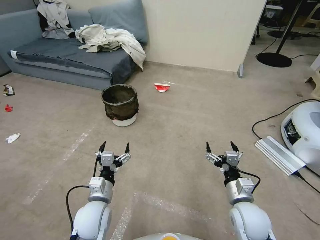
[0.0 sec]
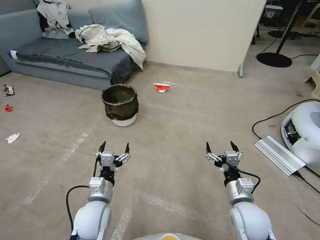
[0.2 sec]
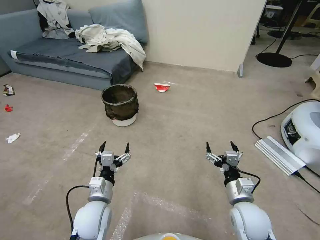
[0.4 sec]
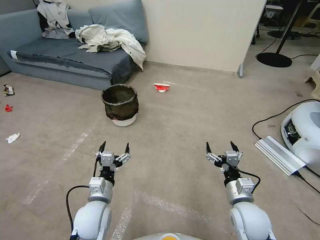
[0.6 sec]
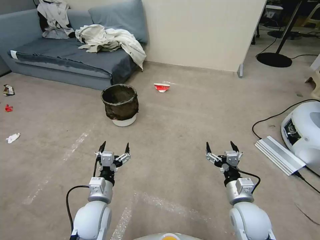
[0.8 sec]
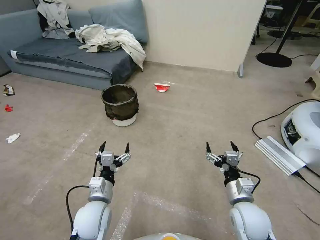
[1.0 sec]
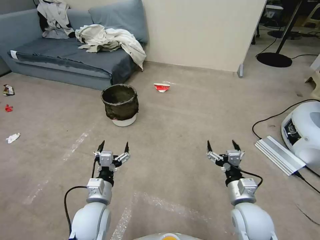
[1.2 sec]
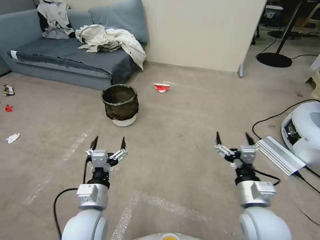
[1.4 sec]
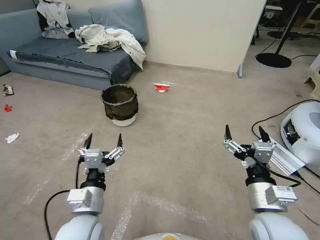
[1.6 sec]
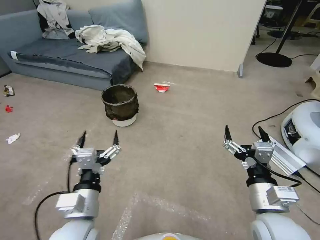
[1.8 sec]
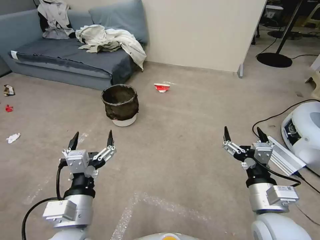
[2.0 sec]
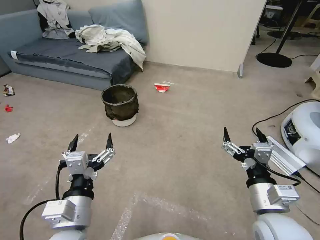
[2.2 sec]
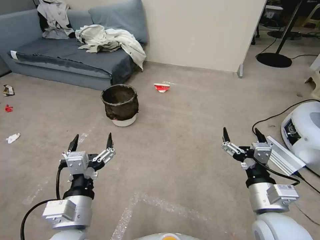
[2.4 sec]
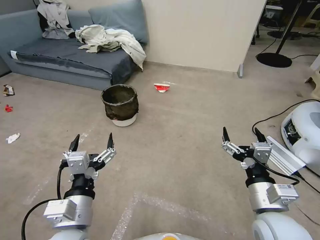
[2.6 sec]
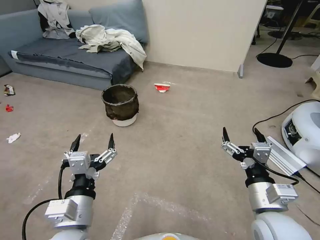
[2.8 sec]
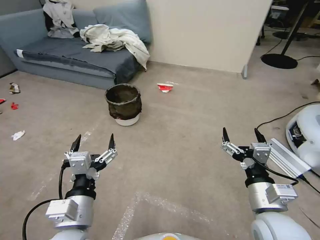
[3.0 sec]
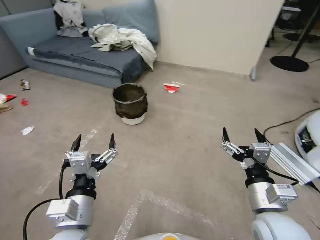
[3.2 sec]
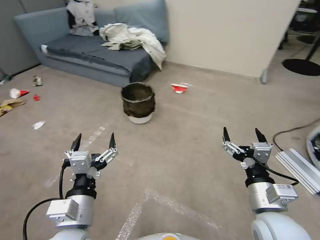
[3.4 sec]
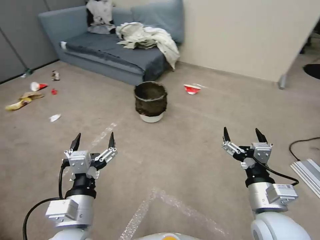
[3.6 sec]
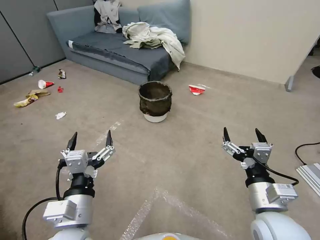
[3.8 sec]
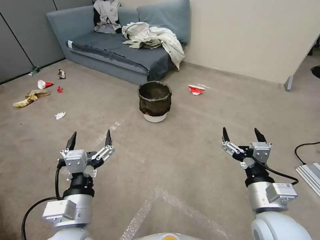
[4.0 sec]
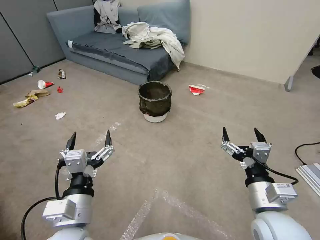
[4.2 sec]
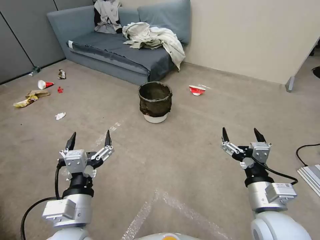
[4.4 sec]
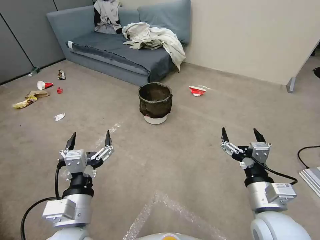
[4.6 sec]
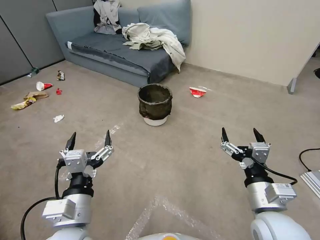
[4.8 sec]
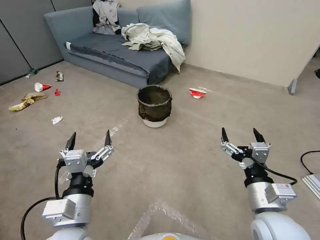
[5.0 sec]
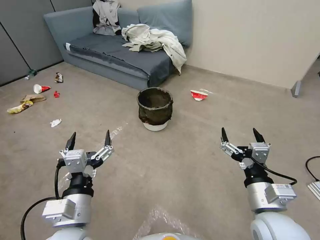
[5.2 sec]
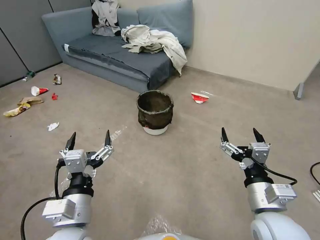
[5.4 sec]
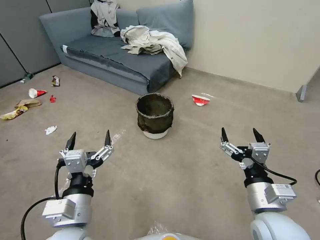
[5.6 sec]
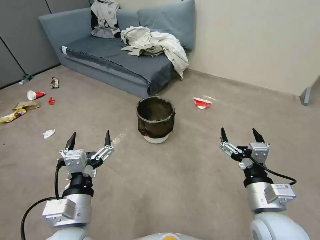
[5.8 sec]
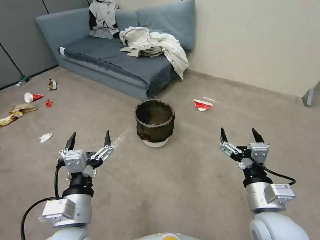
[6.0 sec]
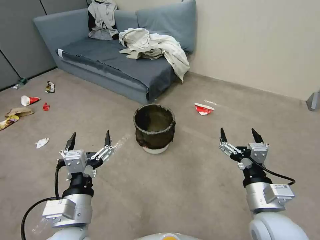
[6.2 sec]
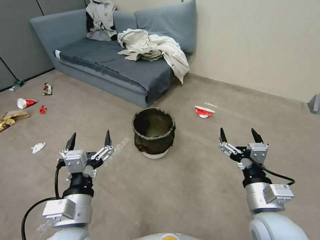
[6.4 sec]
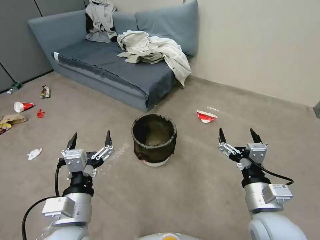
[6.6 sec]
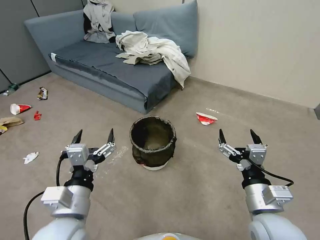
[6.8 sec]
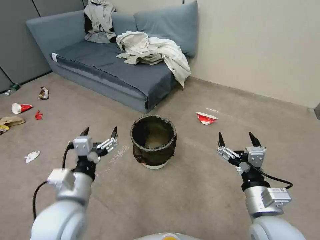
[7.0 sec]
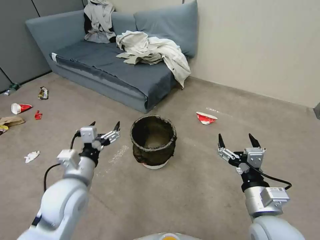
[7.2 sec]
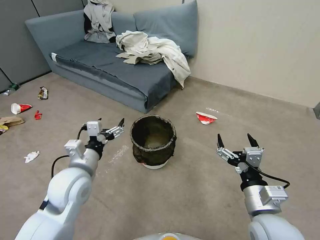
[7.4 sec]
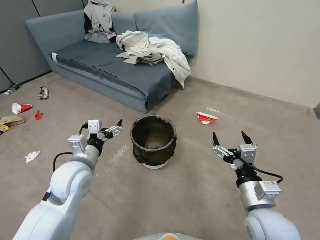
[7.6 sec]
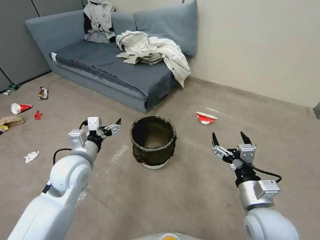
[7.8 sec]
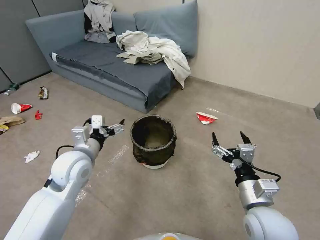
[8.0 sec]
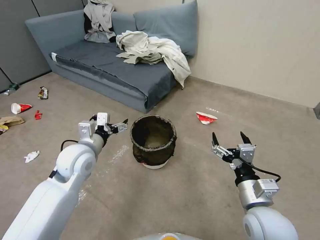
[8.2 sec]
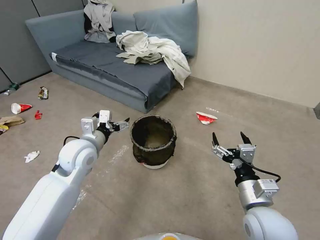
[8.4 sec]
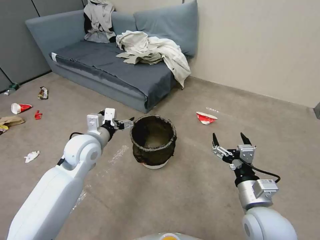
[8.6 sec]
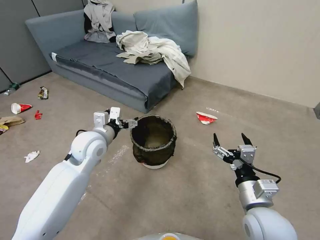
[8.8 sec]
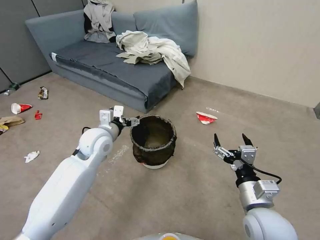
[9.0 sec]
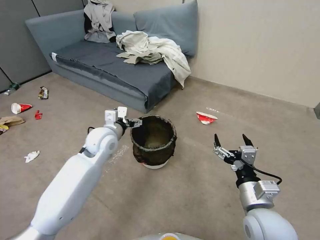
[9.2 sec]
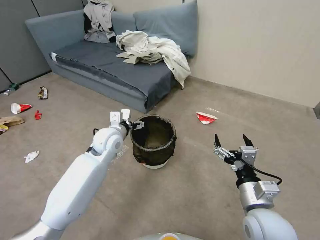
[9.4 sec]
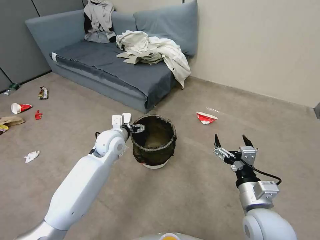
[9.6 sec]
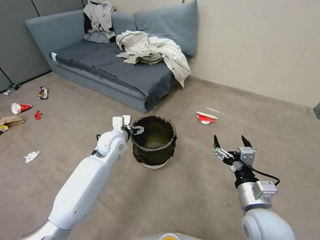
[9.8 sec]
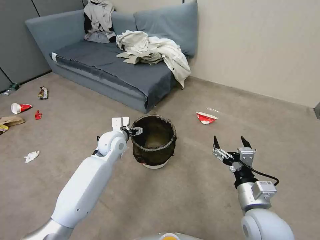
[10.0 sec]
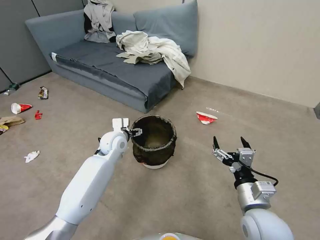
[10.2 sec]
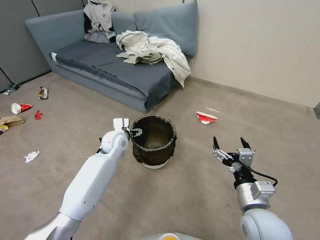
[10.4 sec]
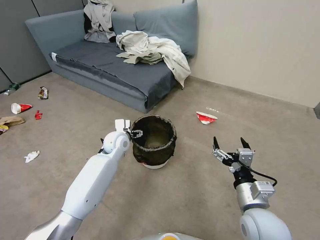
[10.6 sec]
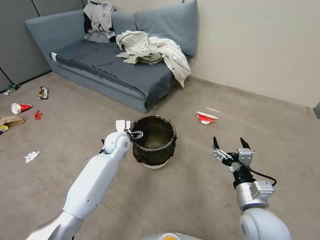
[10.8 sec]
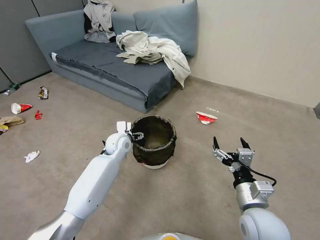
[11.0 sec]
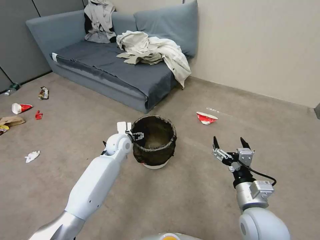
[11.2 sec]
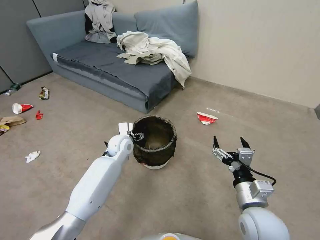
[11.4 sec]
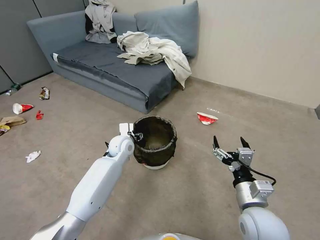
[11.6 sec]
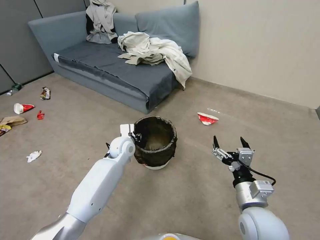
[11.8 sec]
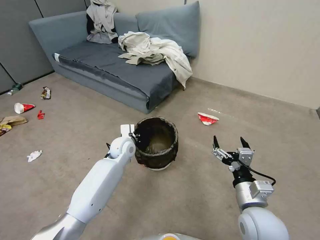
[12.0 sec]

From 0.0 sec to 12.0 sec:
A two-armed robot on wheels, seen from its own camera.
Task of the whole recording: Pick up the trash can from the floor.
From 1.6 sec to 3.0 sec: The left gripper is displaced upward by approximately 5 cm.
From 4.4 sec to 6.0 sec: Both grippers stay about where they are.
From 6.0 sec to 7.6 sec: The left gripper moves forward, roughly 15 cm.
From 7.6 sec to 9.0 sec: The left gripper heads forward, covering some 10 cm.
From 9.0 sec to 10.4 sec: The left gripper shifts approximately 10 cm downward and forward.
From 10.4 sec to 12.0 sec: The left gripper closes.

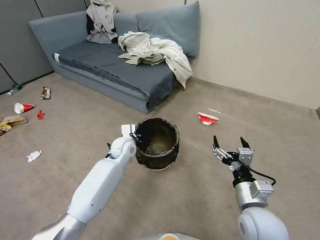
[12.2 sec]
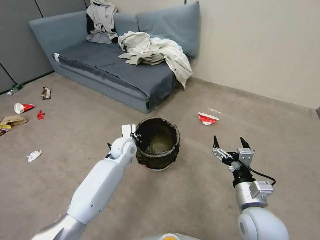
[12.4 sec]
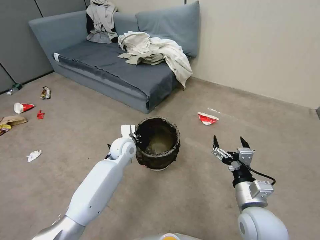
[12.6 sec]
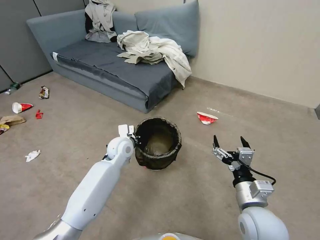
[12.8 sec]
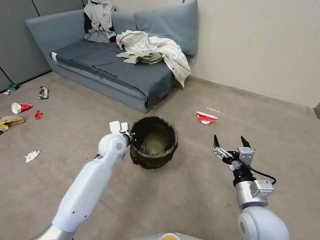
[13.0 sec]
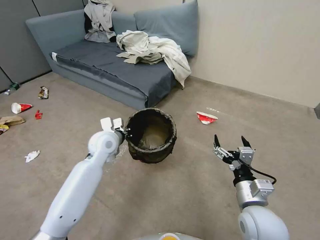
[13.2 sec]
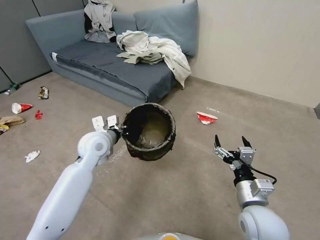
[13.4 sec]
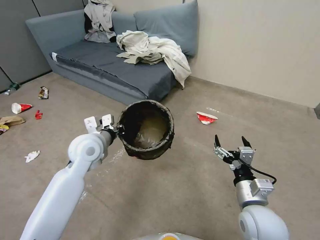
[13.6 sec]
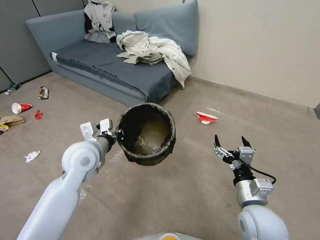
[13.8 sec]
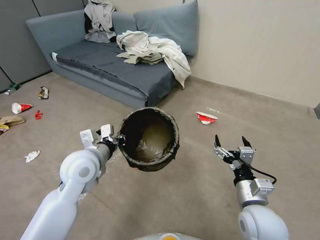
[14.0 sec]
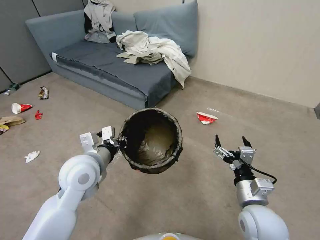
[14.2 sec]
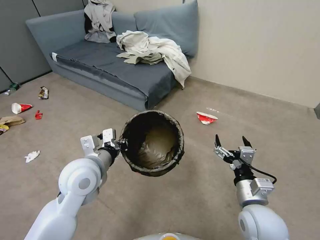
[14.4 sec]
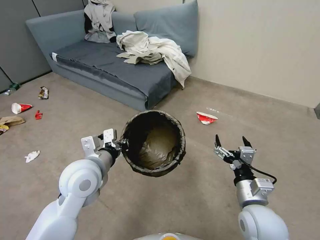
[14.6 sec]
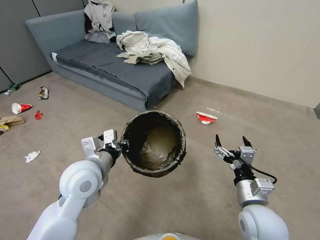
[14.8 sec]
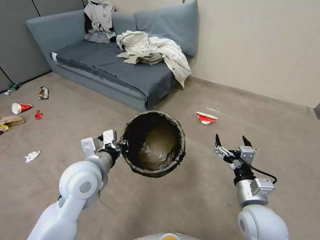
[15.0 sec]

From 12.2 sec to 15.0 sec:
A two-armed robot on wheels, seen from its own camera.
Task of the whole recording: Pick up the trash can from the floor.
From 12.2 sec to 13.6 sec: The left gripper shifts approximately 15 cm upward, backward and to the left.
From 13.6 sec to 15.0 sec: The left gripper goes about 10 cm backward.
